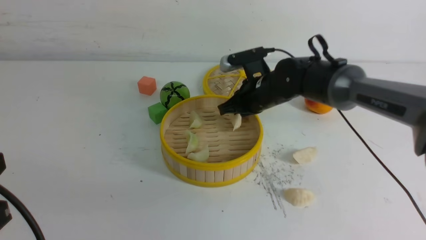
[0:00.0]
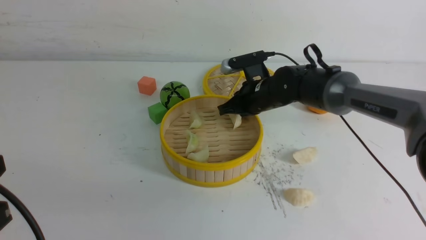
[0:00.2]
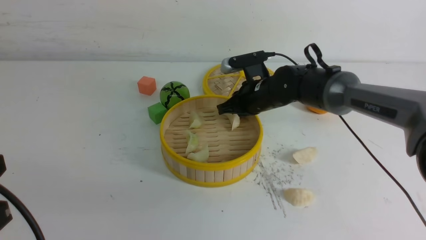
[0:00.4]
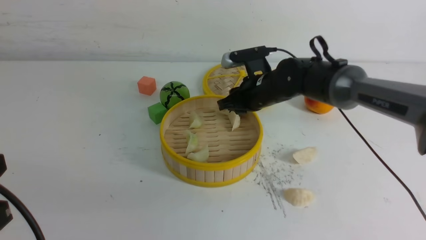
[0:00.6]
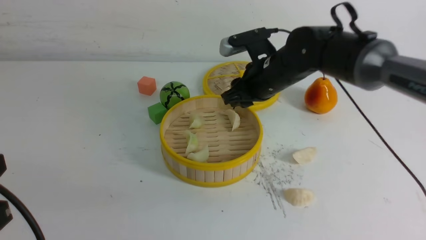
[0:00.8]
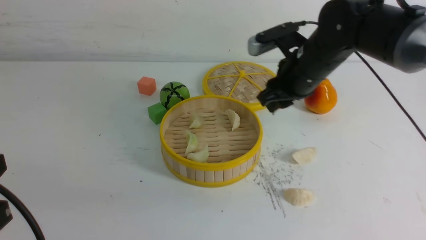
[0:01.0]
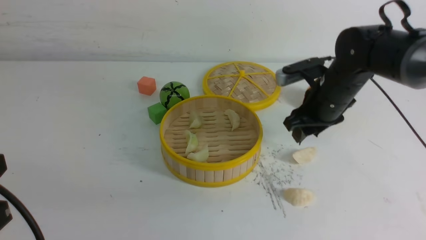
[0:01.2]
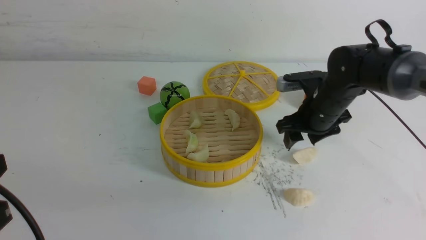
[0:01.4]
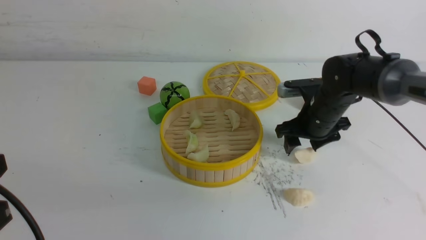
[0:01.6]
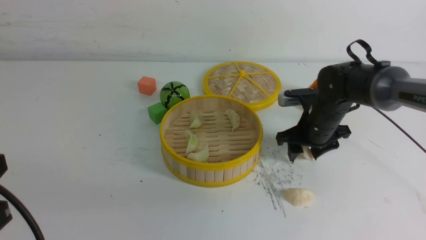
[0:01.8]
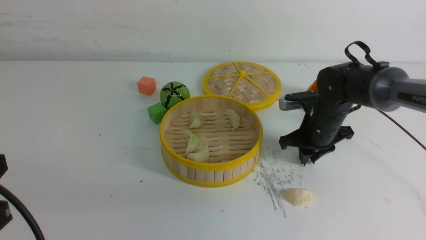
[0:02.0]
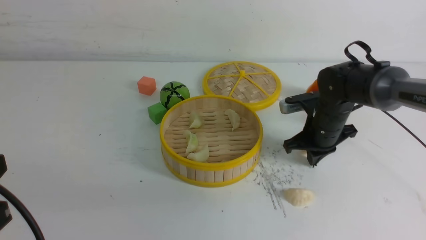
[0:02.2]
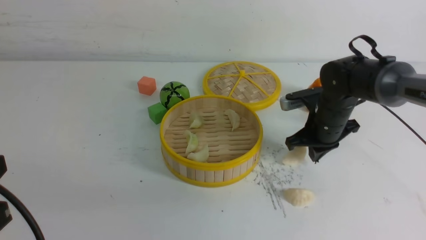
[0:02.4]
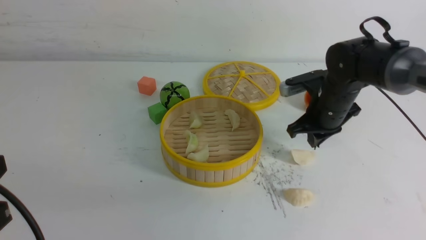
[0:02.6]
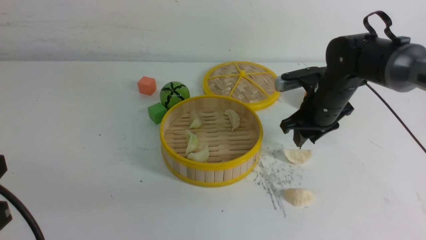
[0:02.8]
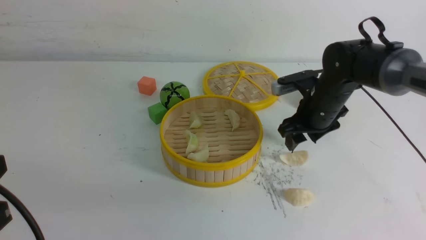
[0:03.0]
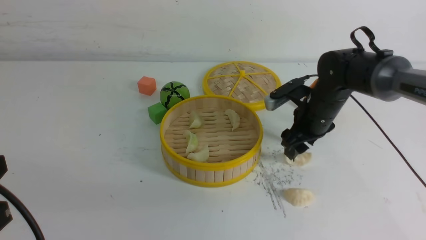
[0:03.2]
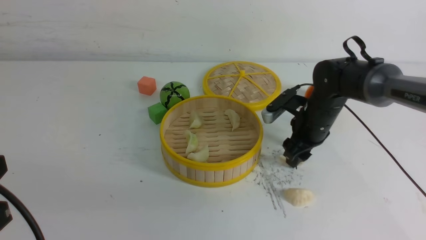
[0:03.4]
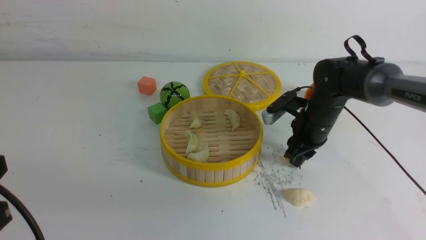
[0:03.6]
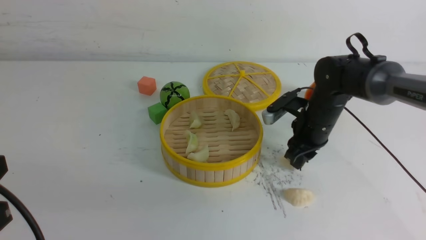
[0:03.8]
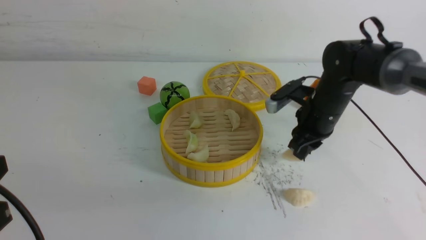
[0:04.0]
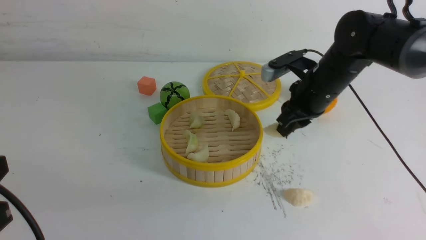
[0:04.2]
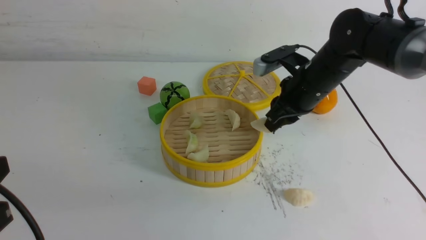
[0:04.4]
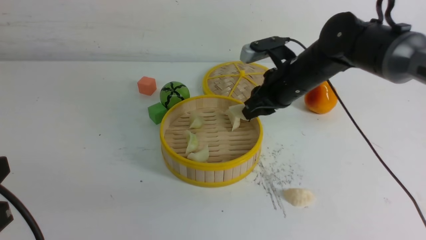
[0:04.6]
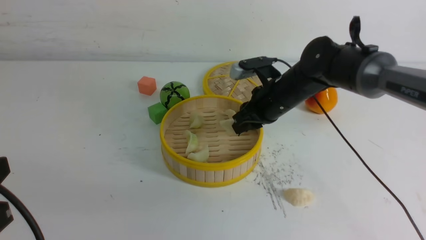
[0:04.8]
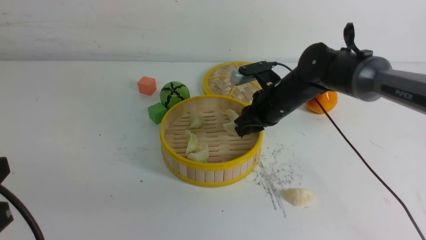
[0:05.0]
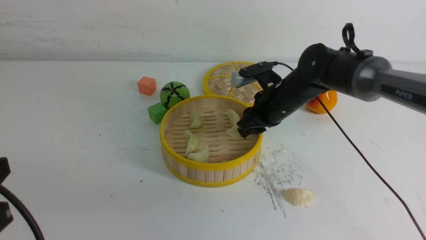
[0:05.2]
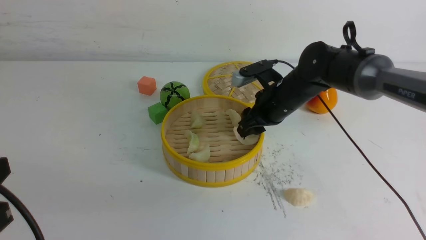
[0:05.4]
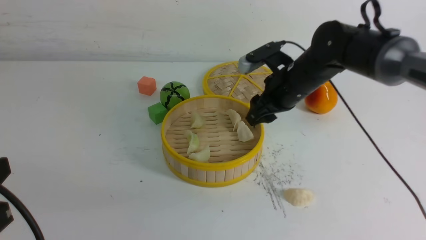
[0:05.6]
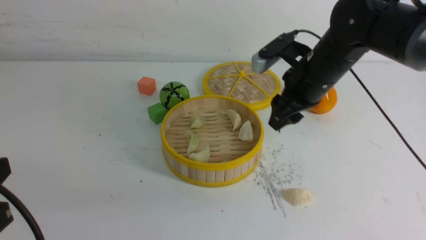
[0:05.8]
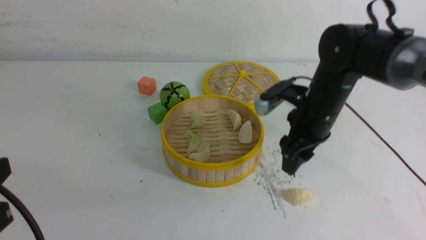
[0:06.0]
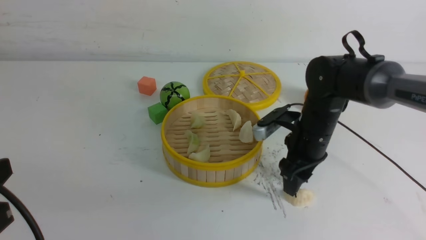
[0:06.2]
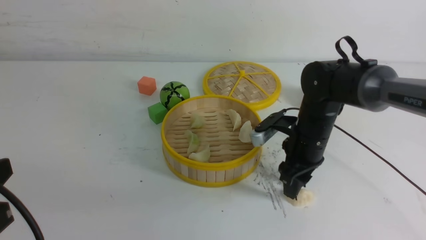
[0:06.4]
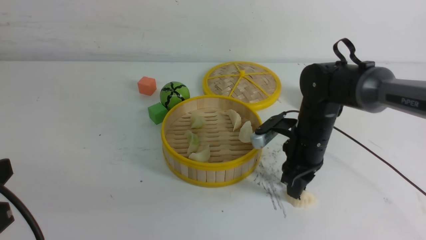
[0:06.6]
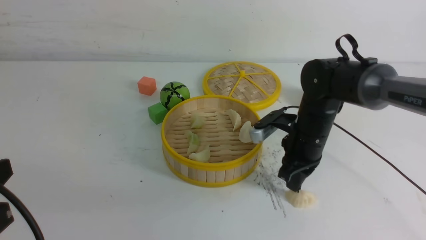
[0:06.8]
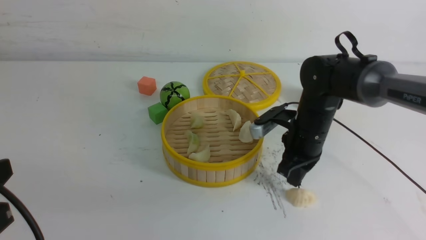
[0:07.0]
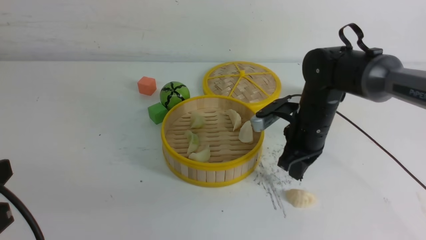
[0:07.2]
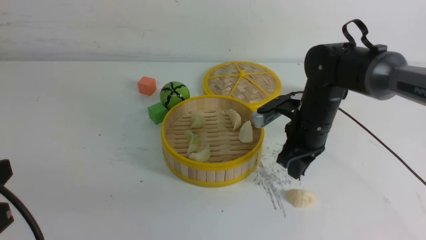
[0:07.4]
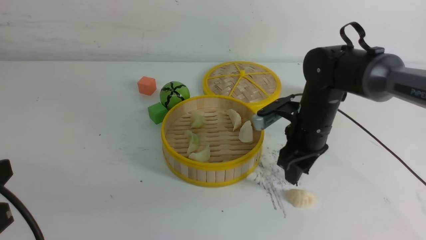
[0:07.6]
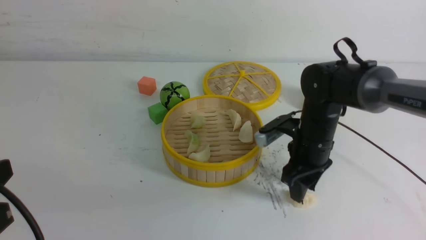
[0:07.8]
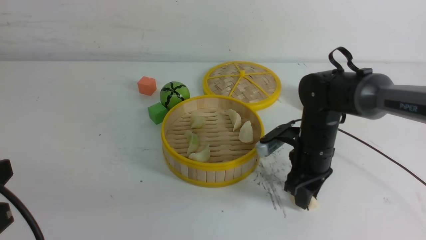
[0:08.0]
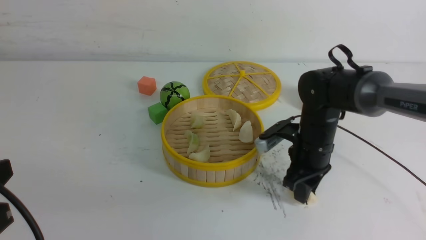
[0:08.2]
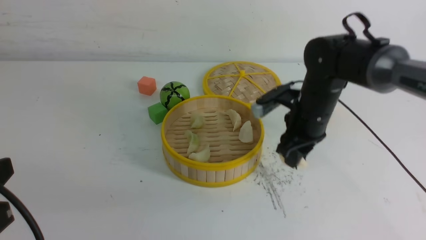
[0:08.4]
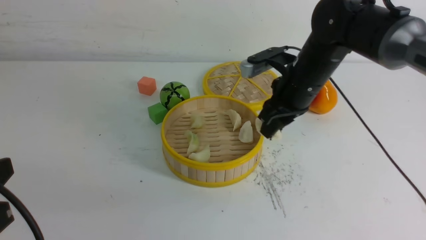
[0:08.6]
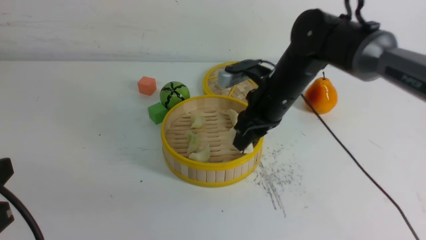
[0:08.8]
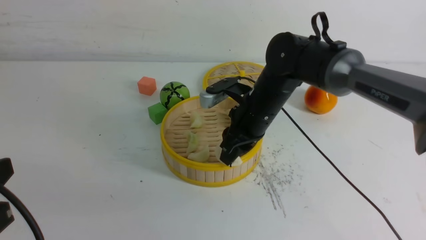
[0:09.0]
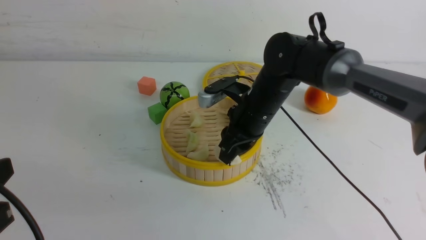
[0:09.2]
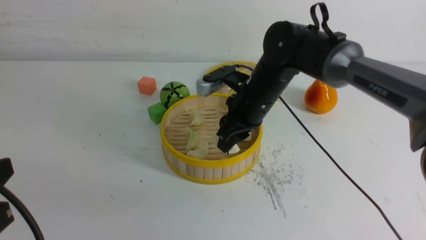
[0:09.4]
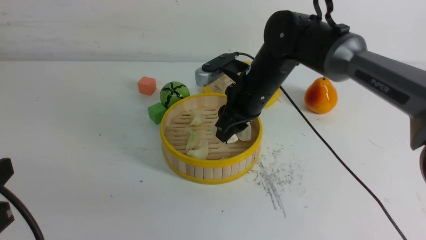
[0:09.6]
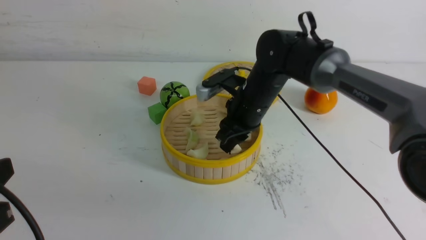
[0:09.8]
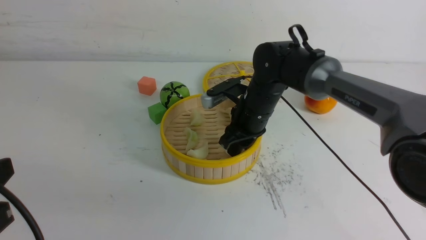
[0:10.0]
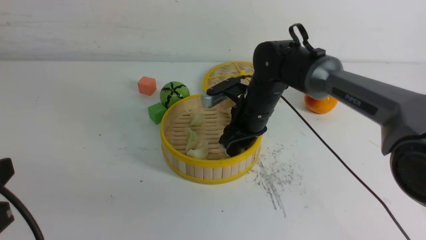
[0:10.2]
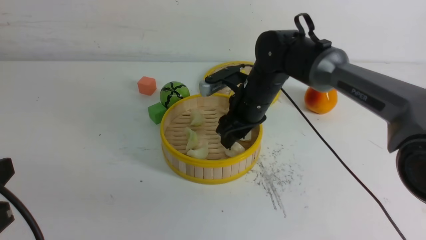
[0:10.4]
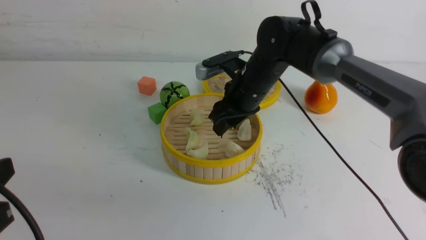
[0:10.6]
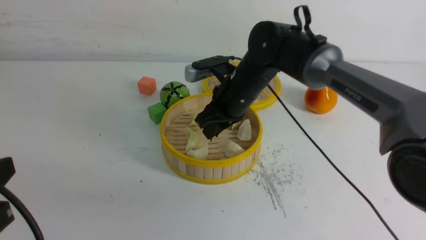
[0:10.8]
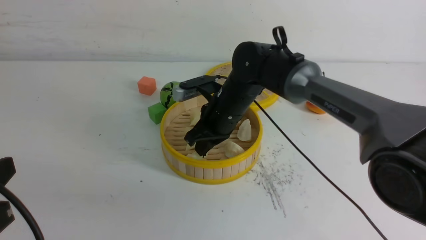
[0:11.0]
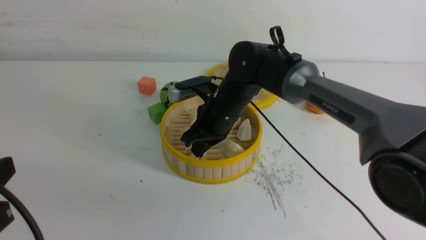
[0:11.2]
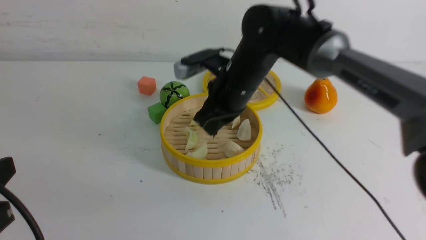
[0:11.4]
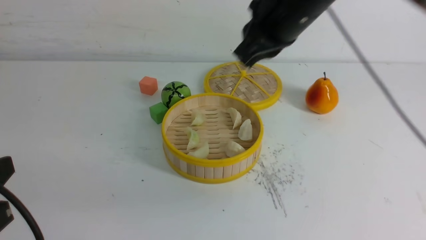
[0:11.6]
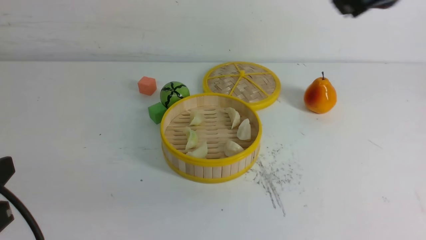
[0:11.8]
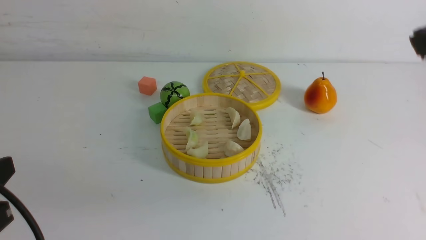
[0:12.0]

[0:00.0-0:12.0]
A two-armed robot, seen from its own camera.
Task of the whole recording: put the dumplings into the steamer on the white table.
Step, 0:00.2 to 0:03.8: use the right arm to grab a dumpling.
Step, 0:04.2 to 0:05.2: use the right arm to put the dumpling into the steamer.
Step, 0:05.4 to 0:08.2: use the right arm to grab a dumpling.
Step, 0:08.4 to 0:10.2: use the right arm to put the dumpling into the steamer.
0:00.0 to 0:01.6: The right gripper goes approximately 10 cm to the right, and opens.
0:01.6 to 0:03.0: The right gripper closes and opens again.
0:03.0 to 0:04.4: The right gripper shifts about 5 cm upward, and closes.
0:04.4 to 0:06.0: The right gripper opens up.
0:06.0 to 0:07.6: The right gripper closes and opens again.
0:07.6 to 0:09.0: The right gripper goes roughly 10 cm to the left.
0:09.0 to 0:10.4: There are only small adjustments of the grippers.
0:10.4 to 0:12.0: The right gripper travels backward, upward and to the right by about 35 cm, and closes its fingers.

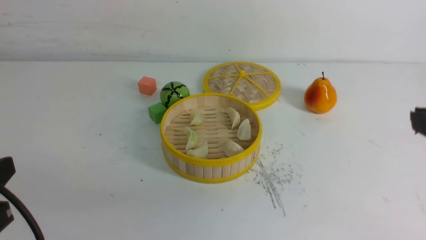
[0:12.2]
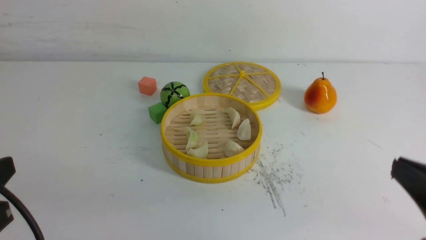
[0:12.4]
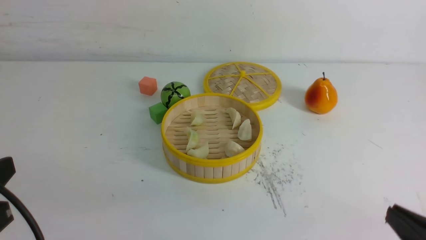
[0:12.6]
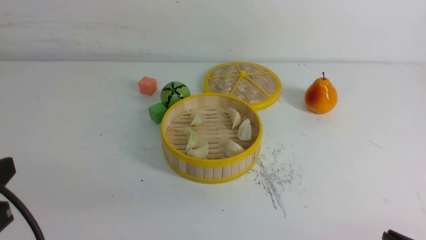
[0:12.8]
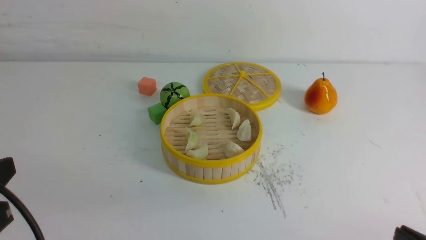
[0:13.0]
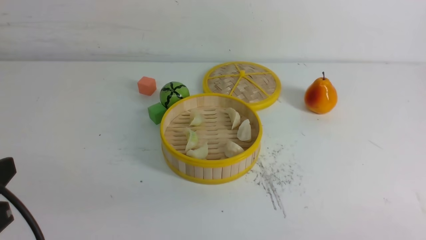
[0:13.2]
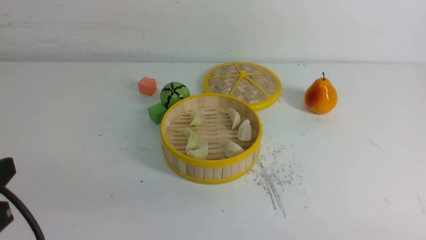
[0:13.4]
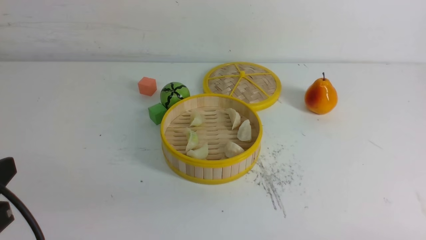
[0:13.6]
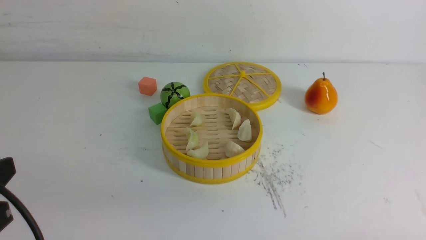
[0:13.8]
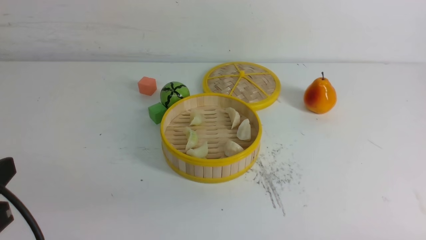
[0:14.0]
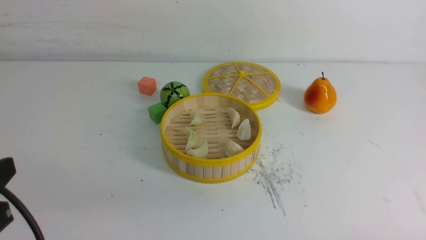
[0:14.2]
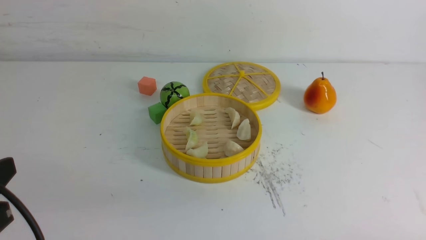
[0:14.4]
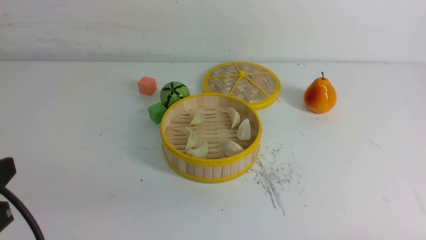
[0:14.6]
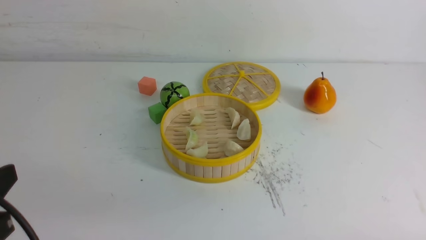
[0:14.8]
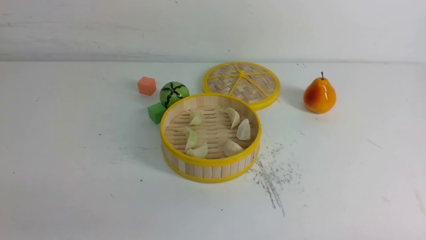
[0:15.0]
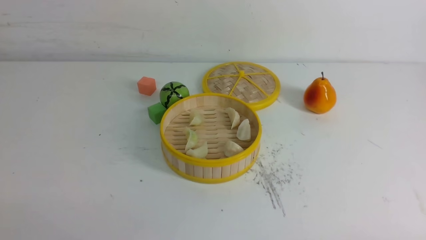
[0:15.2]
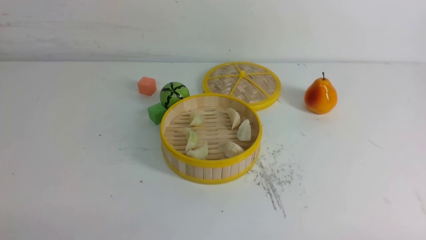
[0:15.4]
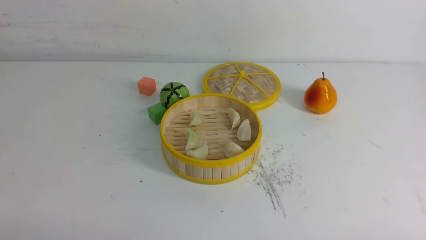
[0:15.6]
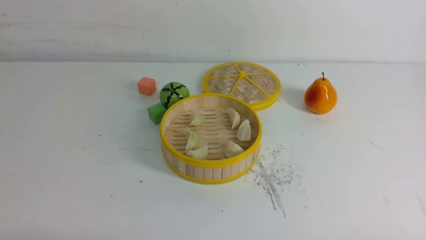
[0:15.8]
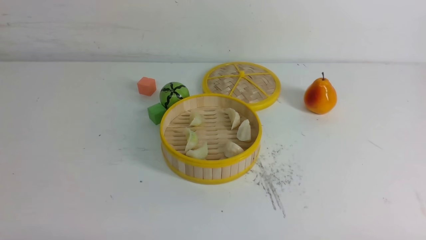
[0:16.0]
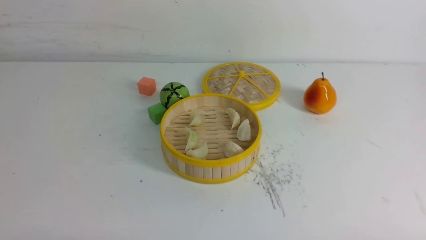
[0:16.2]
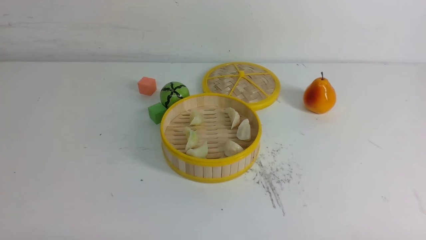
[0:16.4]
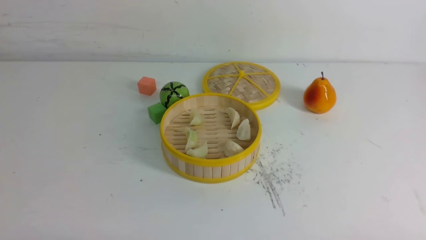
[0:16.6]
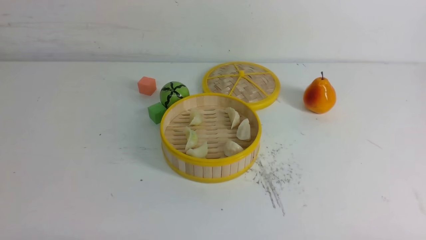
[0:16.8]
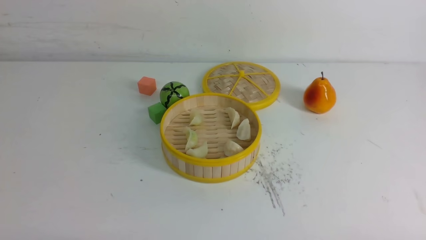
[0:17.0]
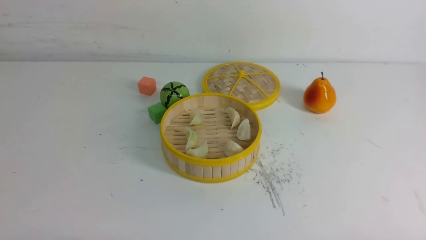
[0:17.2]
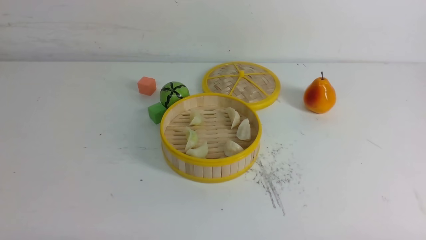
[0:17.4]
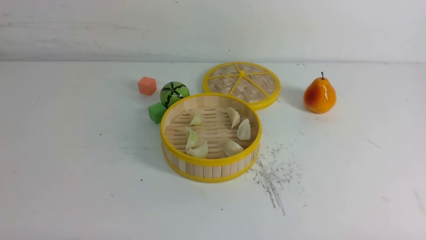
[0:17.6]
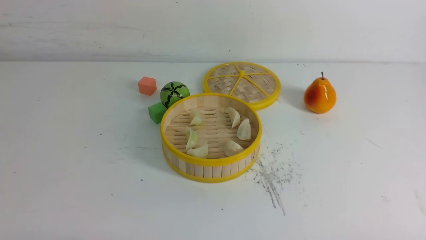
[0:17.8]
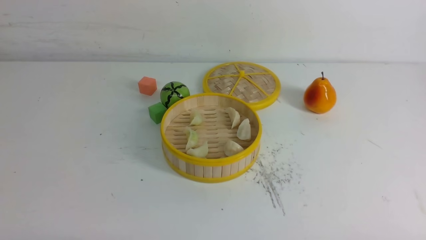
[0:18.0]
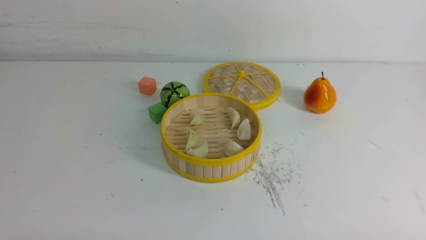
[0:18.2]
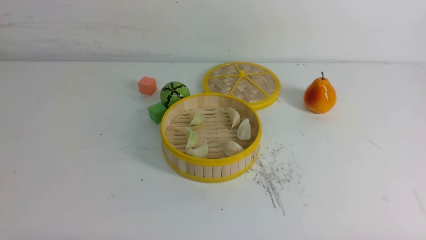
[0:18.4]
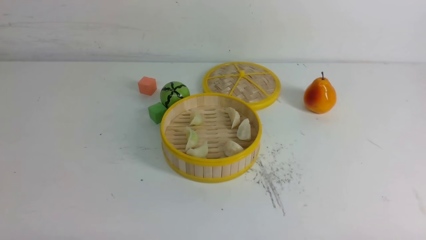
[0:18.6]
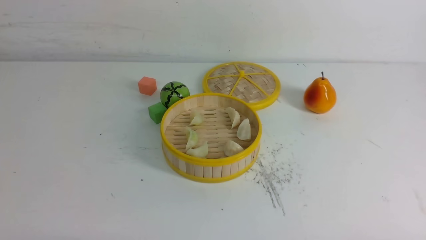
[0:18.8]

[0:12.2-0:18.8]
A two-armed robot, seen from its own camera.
Task of the whole recording: put the dumplings into the steamer on the white table.
0:13.8 to 0:15.4: The left gripper moves downward and backward, some 10 cm.
0:17.2 to 0:18.8: The two grippers keep their place.
